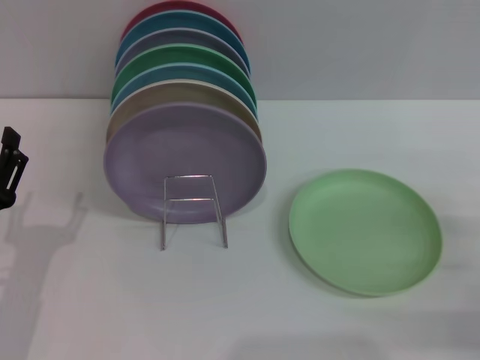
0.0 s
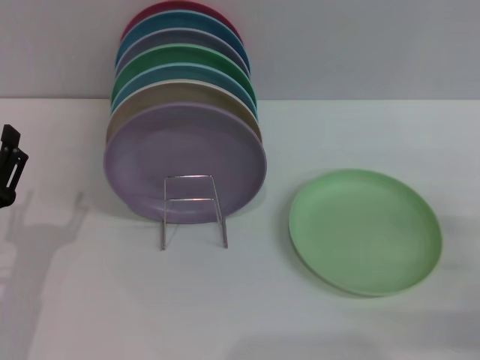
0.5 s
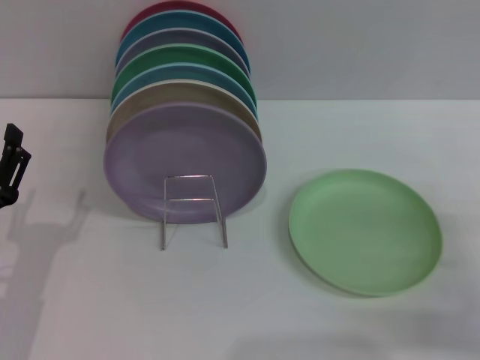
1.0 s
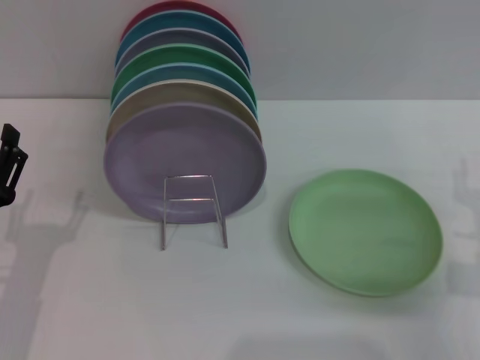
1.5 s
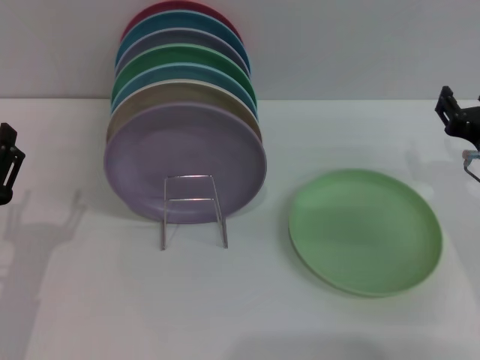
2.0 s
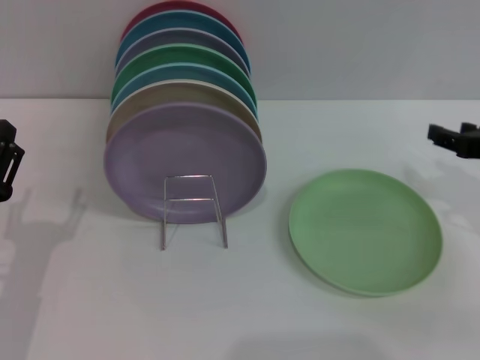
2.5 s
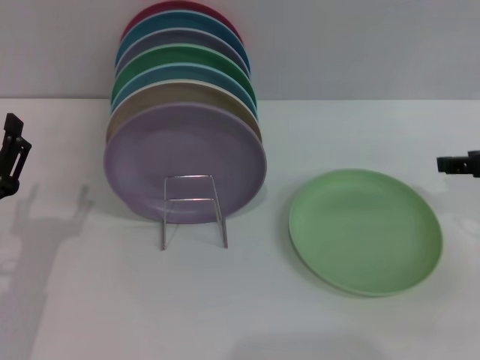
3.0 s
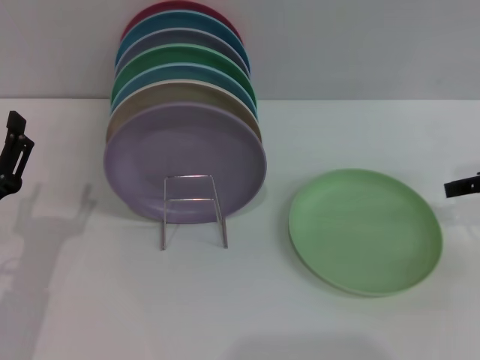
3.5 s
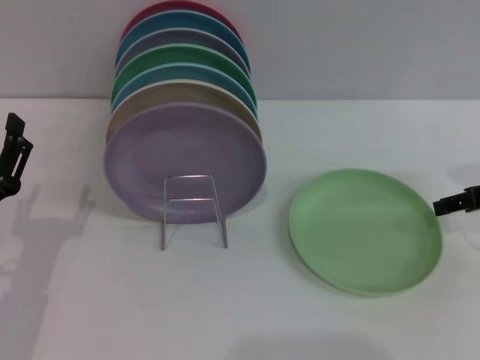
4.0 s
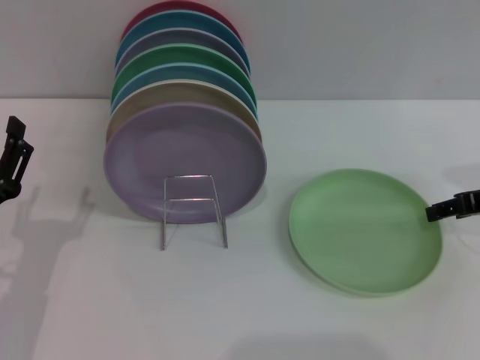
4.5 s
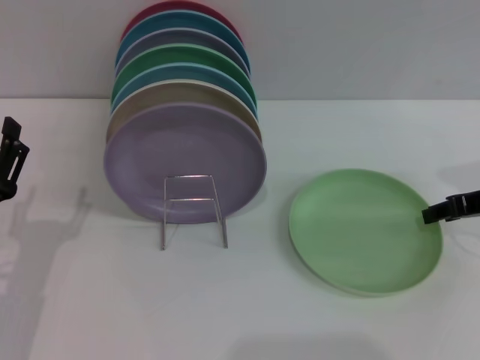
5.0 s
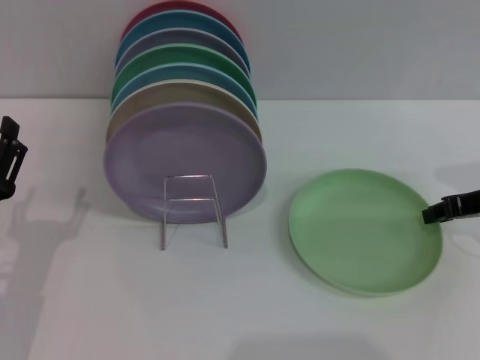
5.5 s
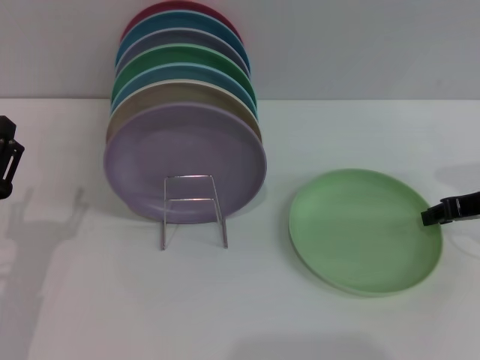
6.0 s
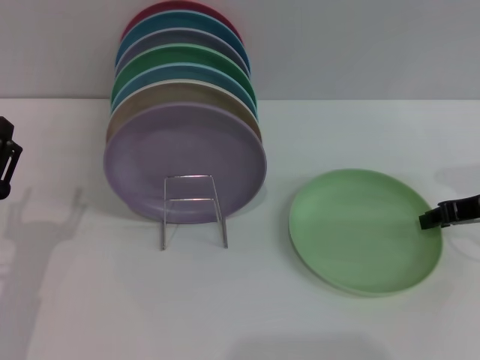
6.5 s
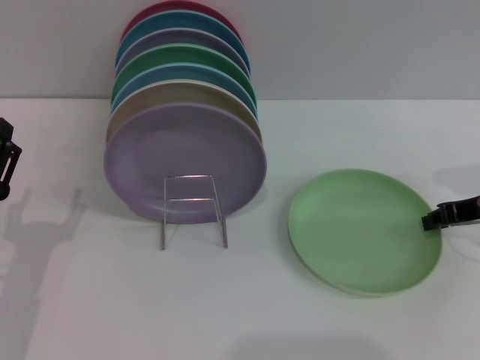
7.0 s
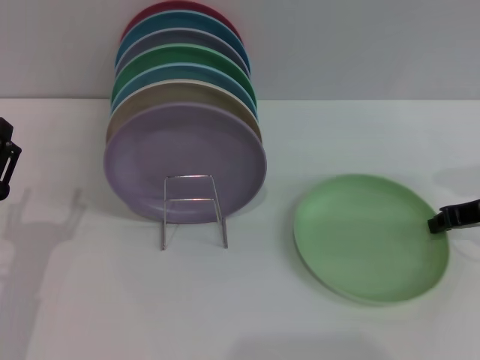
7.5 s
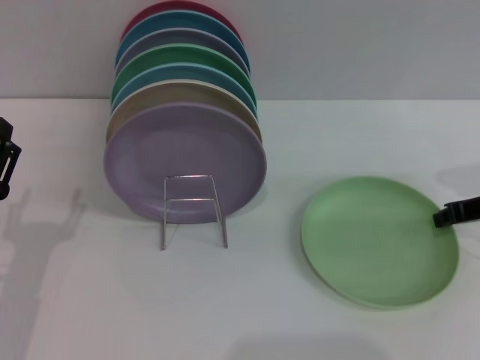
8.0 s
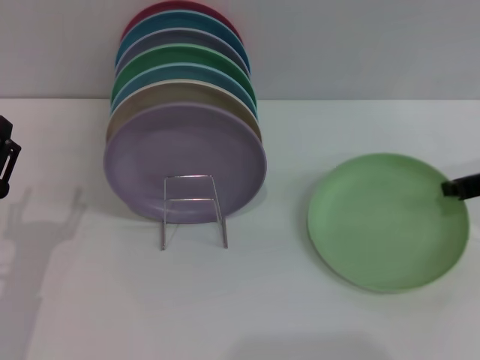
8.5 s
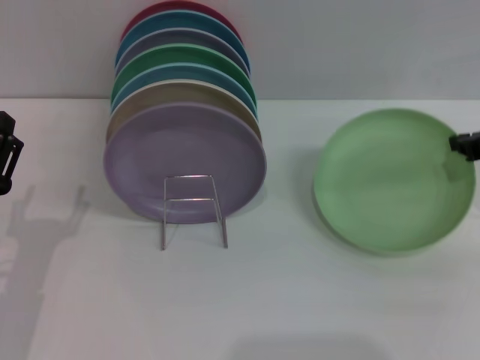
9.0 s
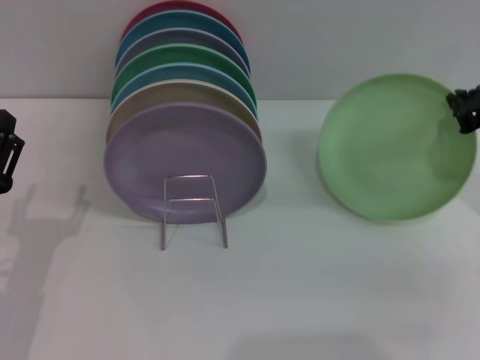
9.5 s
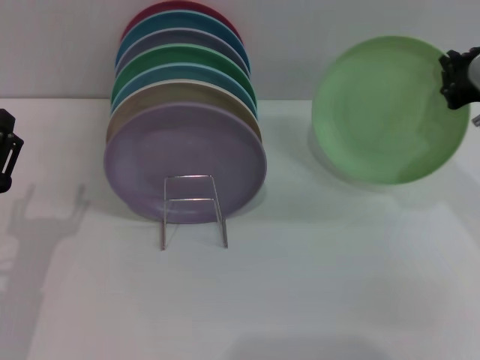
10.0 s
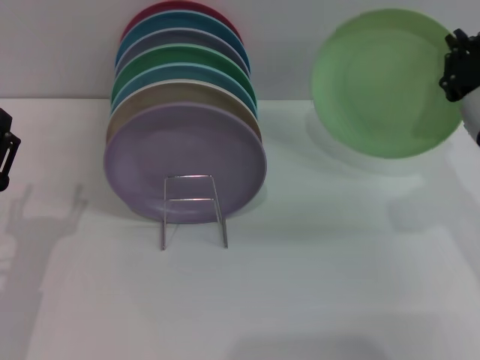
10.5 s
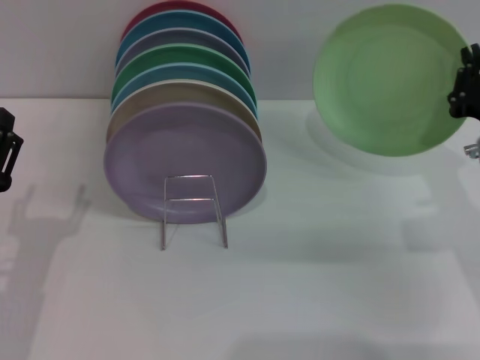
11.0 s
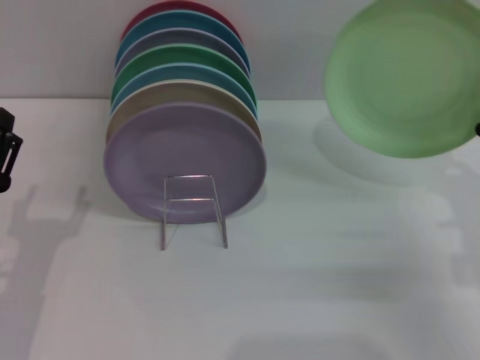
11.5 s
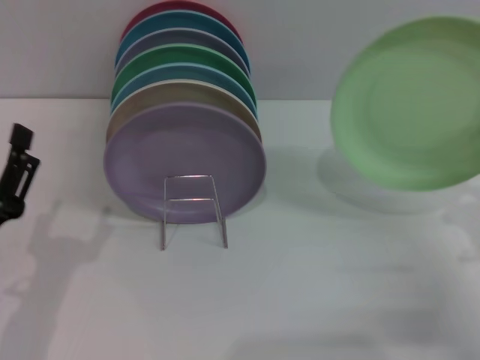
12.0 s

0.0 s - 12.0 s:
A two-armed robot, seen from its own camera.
Task of the whole recording: Grip the plate with one hand, pass it to the other, then set it on the shelf.
Step, 0.0 s - 9.0 s: Pick up the plate with the right gripper.
0.0 s - 2.0 s: The right gripper moves forward, to the left and upward, approximately 15 cm.
2.0 s - 4.0 s: The right gripper moves to the right, approximately 5 cm.
4.0 s - 6.0 s: The right gripper closes.
6.0 s - 8.0 s: Both grippers stay about where they are.
8.0 s - 10.0 s: The right gripper travels upward and to the left by some 10 cm.
10.0 s - 12.0 s: The right gripper moves downward and backward, about 15 cm.

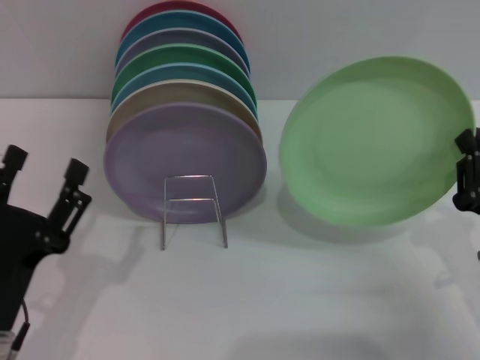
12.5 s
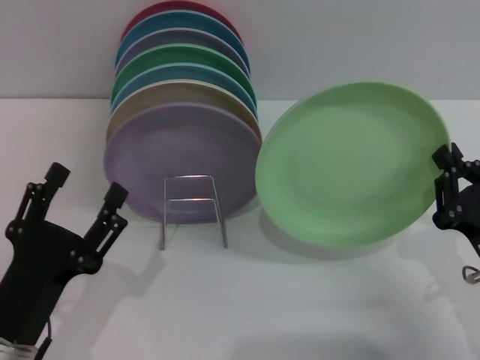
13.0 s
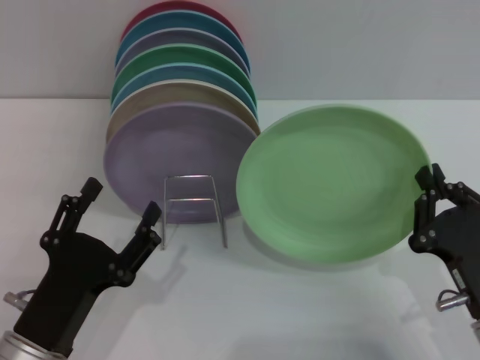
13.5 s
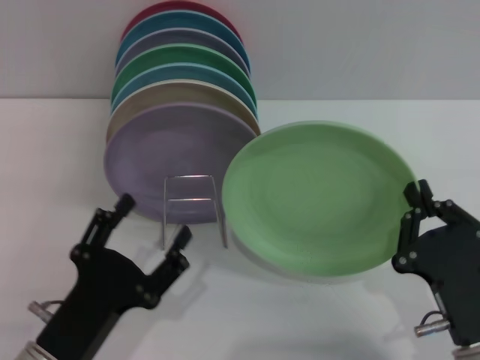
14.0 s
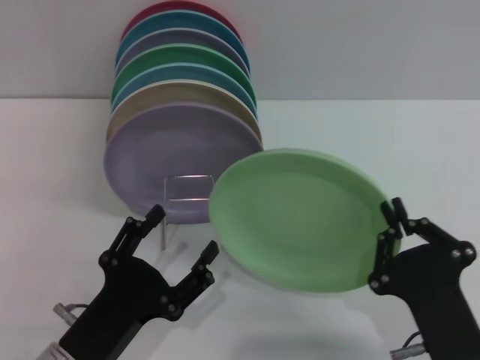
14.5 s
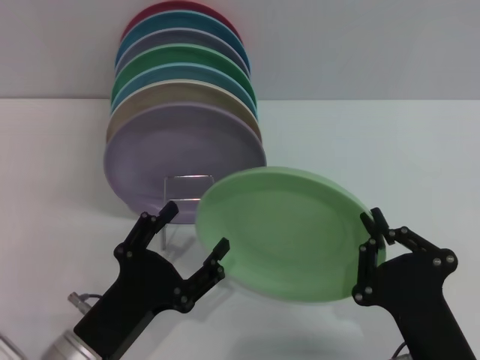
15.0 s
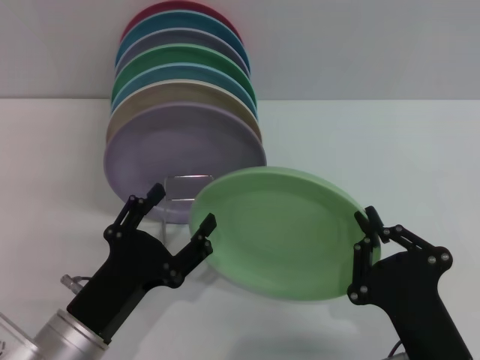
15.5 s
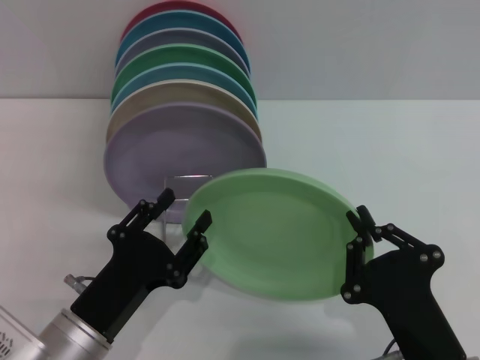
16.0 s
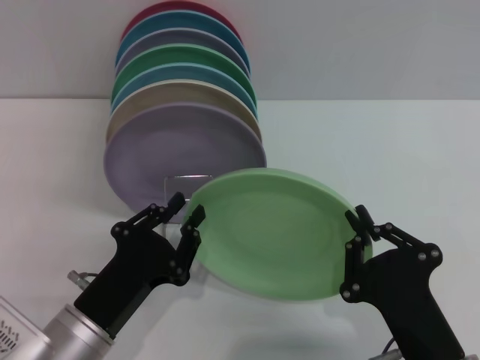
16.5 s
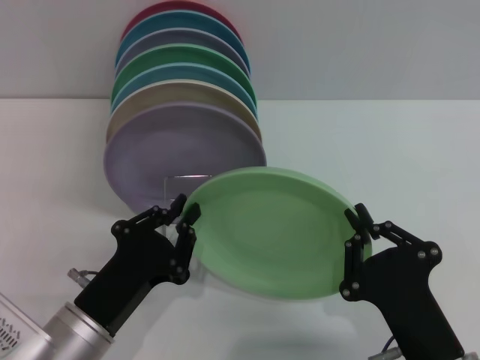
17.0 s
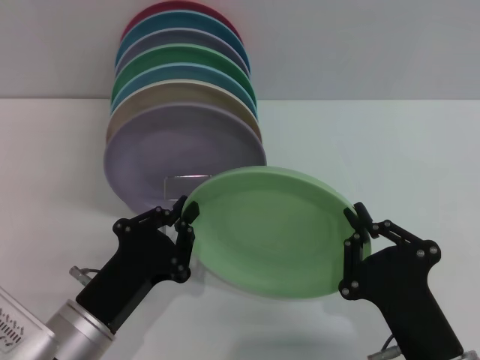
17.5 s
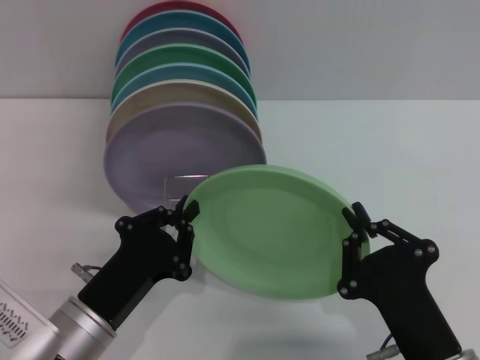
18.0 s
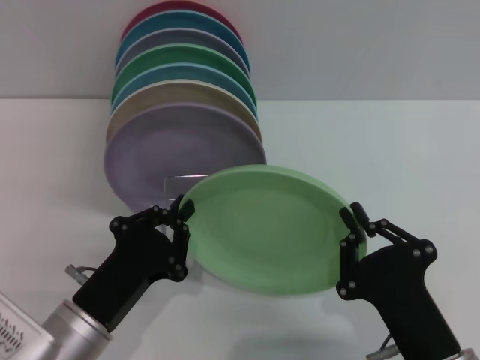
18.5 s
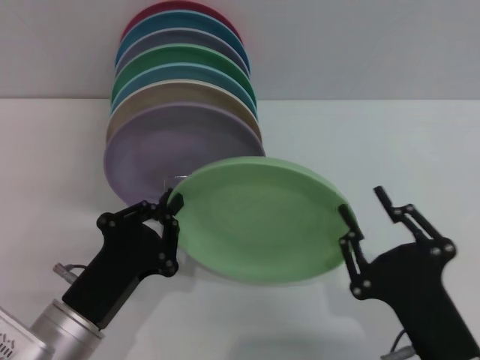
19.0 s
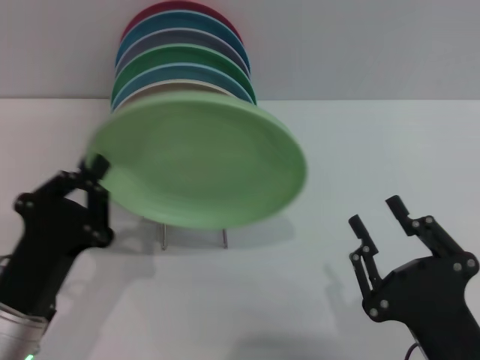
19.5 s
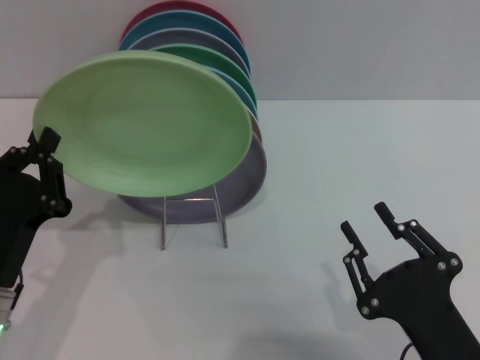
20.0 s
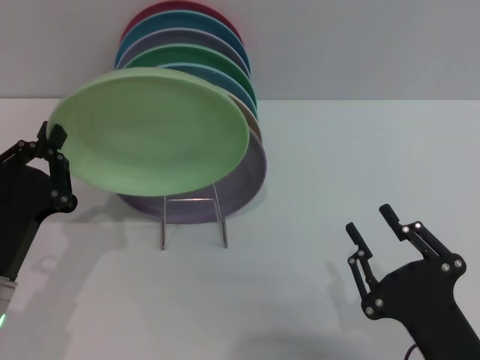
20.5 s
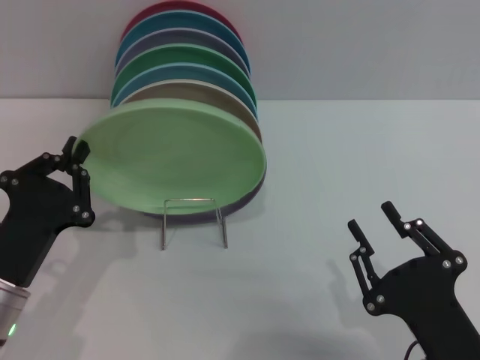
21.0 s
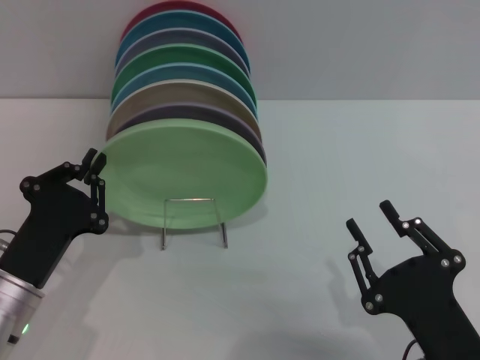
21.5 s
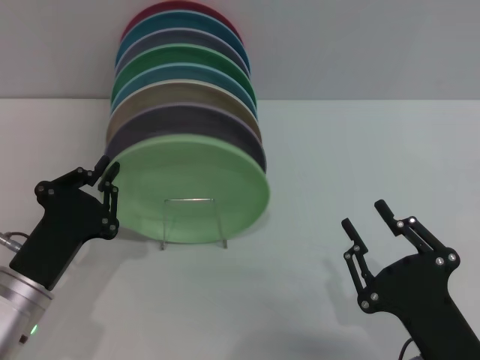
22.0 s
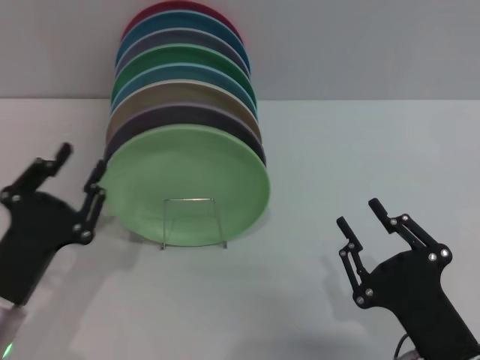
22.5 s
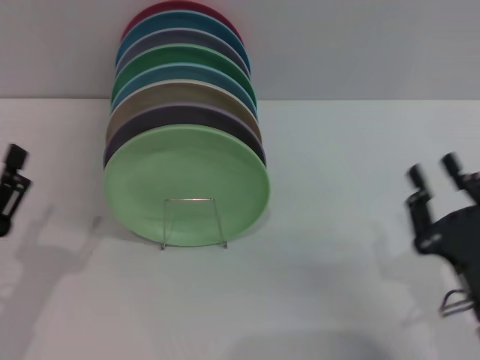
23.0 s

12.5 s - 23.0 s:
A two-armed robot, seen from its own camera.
Task of the whole recording: Grip the plate with one hand, pass it to the other, then set it on the shelf.
Step, 12.5 s - 19.0 s: Pass the plate from the right gripper to the left gripper.
Step, 19.5 s - 22.5 s: Place the plate on the shelf with the left gripper.
12.5 s - 14.5 s: The left gripper heads to the right, covering about 5 cm; the right gripper heads to the left and backward, covering about 15 cm.
14.5 s - 16.5 s: The left gripper closes its fingers.
16.5 s - 19.0 s: The right gripper opens up; the left gripper closes its fingers.
19.0 s - 21.0 s: The left gripper heads to the left, covering roughly 5 cm.
21.0 s - 23.0 s: The right gripper moves approximately 5 cm. The left gripper changes place by roughly 5 cm, and opens its fingers.

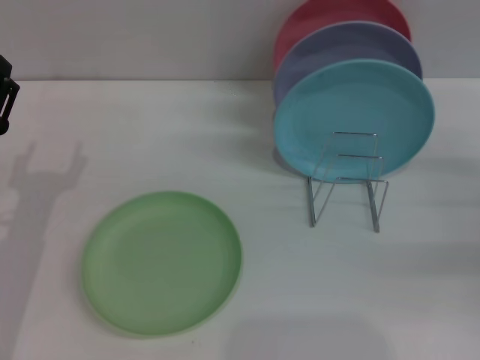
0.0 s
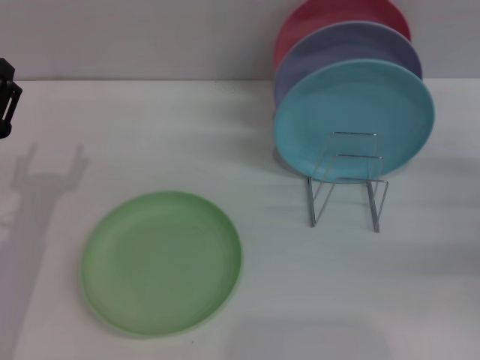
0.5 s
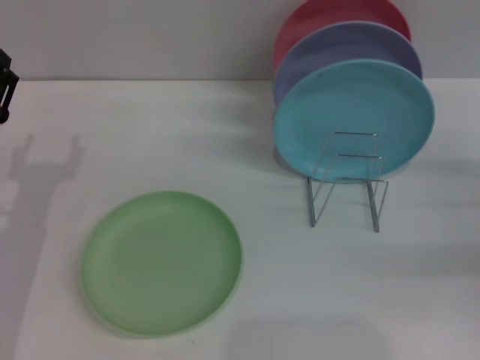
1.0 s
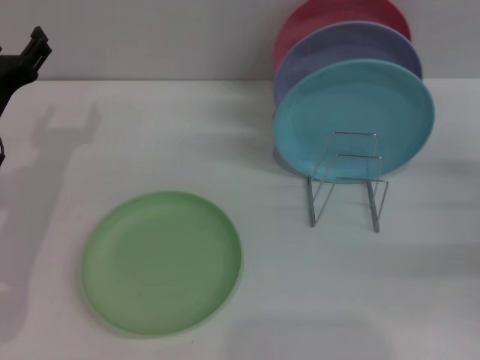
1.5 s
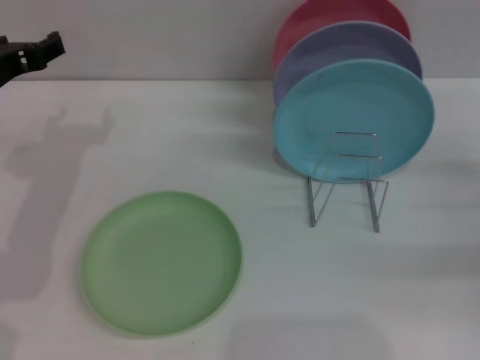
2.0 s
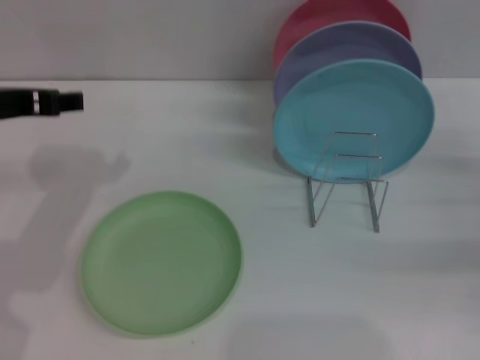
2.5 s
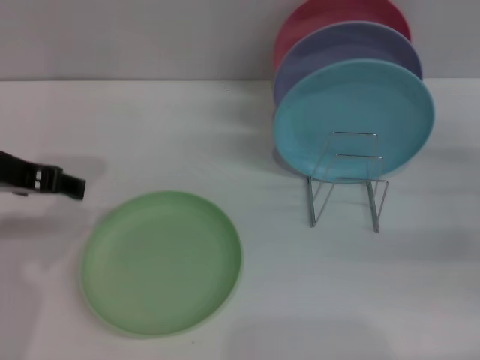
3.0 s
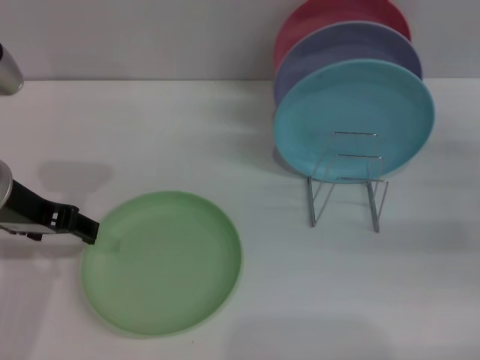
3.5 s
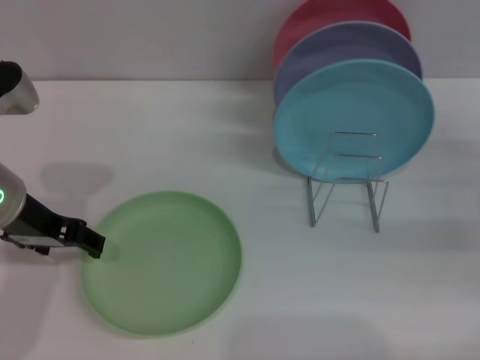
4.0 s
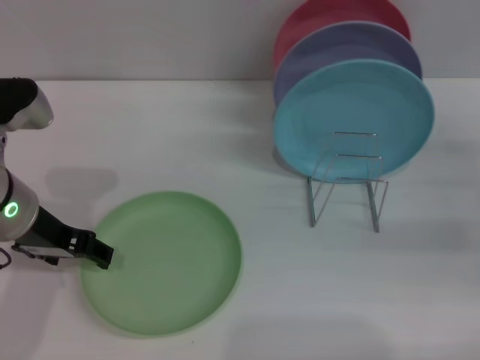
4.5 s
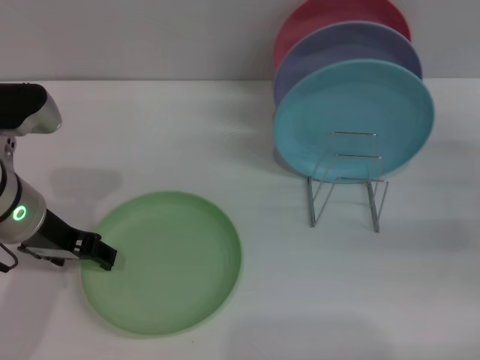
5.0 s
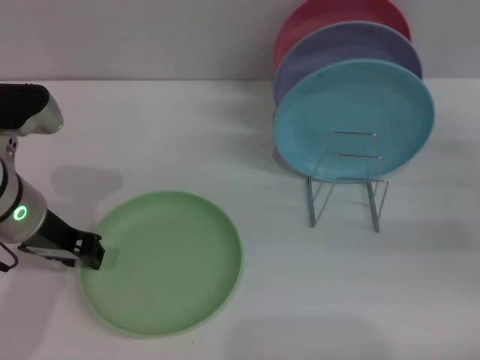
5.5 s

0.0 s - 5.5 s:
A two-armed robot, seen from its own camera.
Task of the whole recording: Grip the plate with one hand, pass it to the other, then set it on the shelf.
0.0 s - 2.0 s: The left gripper is displaced upward and forward by about 15 cm.
3.5 s - 5.5 s: The grippers move only a little.
